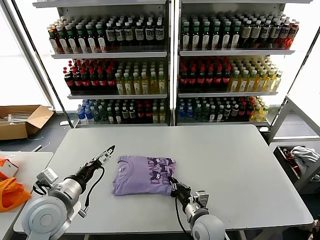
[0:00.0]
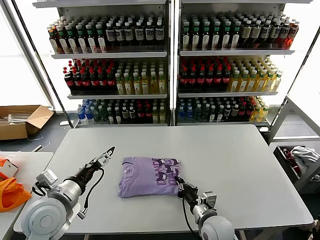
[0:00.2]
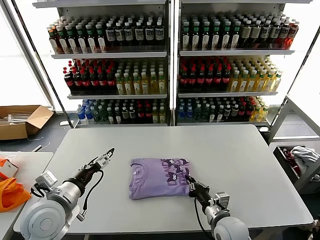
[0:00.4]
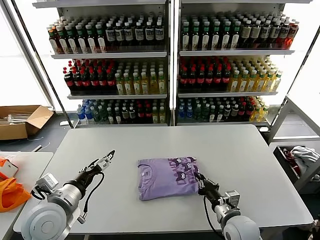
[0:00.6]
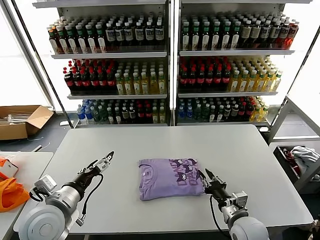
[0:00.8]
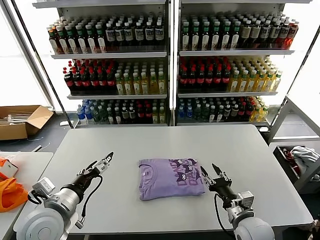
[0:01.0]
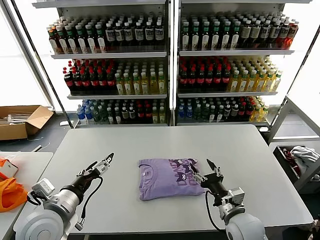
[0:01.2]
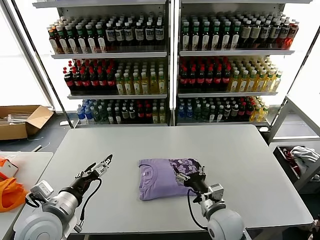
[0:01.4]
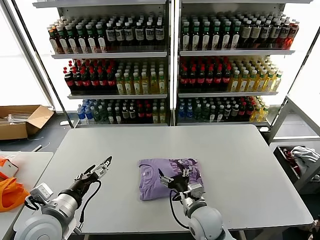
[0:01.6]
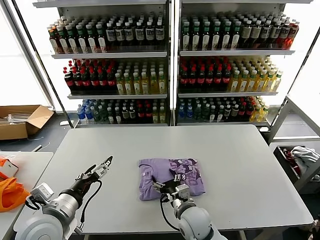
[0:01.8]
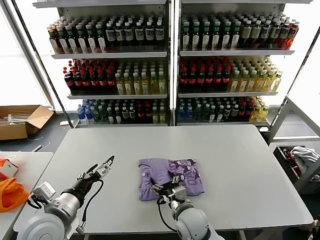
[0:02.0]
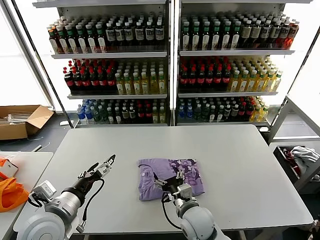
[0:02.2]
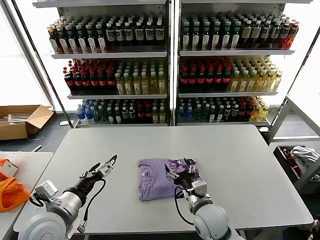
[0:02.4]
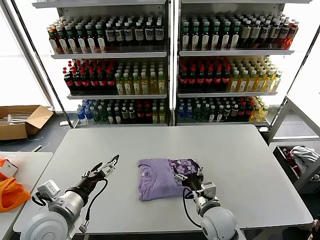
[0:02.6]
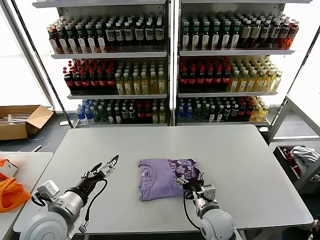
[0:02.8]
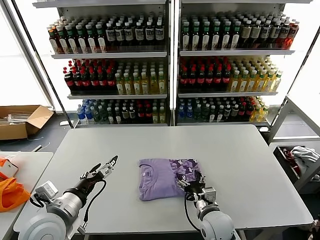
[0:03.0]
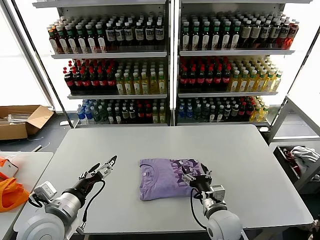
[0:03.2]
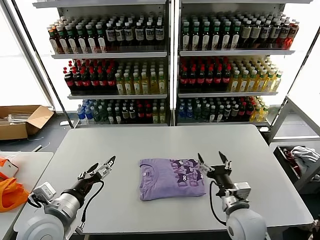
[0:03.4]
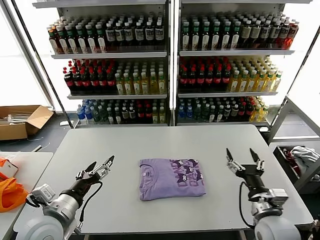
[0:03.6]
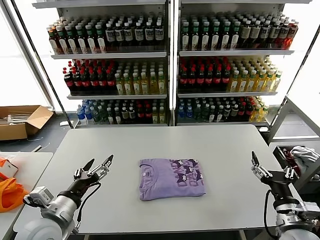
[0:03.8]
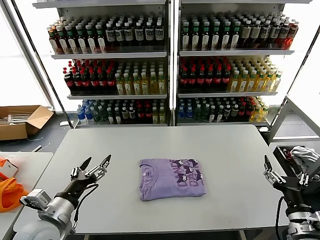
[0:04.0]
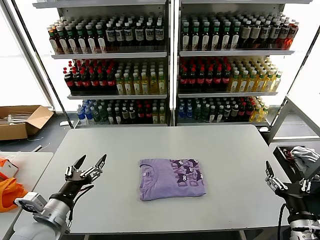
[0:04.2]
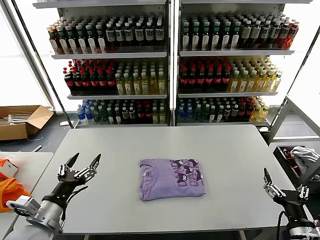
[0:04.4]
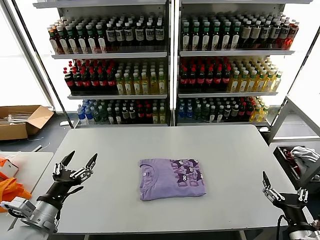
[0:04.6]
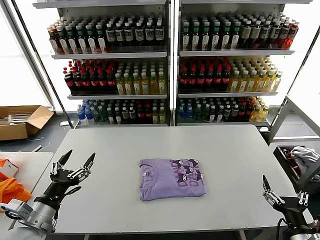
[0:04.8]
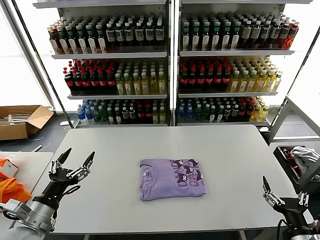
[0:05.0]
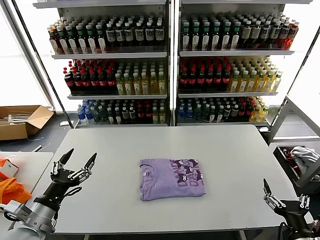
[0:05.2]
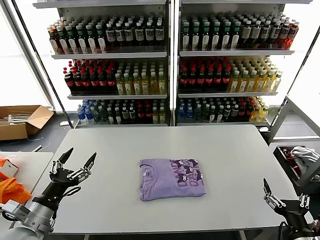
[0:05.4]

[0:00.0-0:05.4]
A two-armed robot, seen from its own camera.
Task of the whole recording: fold and organize the clothes.
Step, 0:00.0 to 0:02.0: Drag the clothes to the center of the table.
0:00.0 to 0:01.4: The right gripper moves to the right and upward, some 10 cm, and opens.
0:01.4 to 0:02.8: The right gripper travels to the left and back again, some 10 cm each way.
0:02.8 to 0:04.0: The right gripper travels to the right, backward and upward by about 25 cm.
0:04.0 to 0:05.4: The left gripper changes place by roughly 5 cm; the right gripper goes roughly 5 cm backward.
